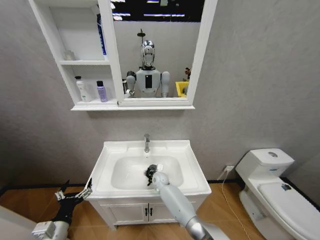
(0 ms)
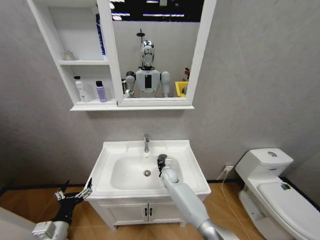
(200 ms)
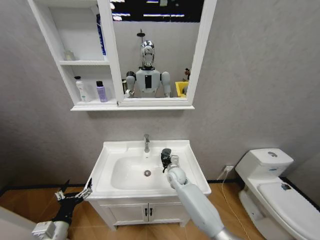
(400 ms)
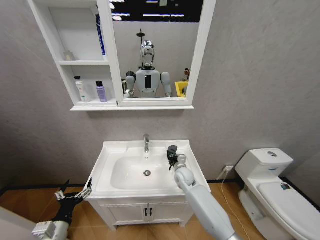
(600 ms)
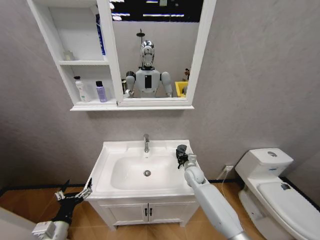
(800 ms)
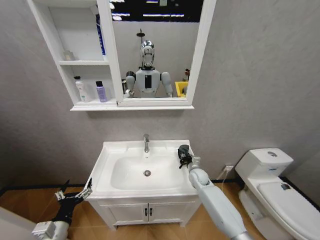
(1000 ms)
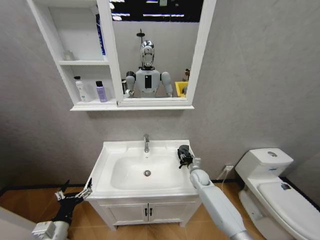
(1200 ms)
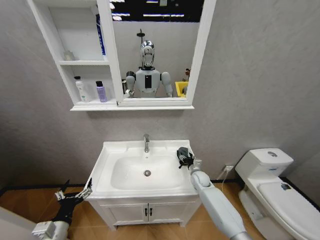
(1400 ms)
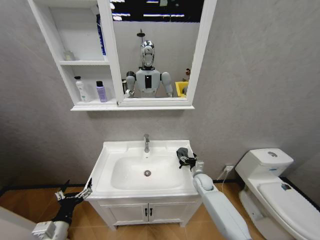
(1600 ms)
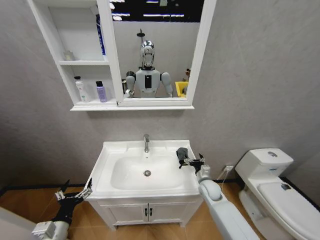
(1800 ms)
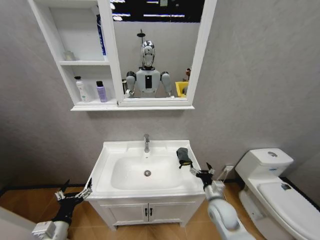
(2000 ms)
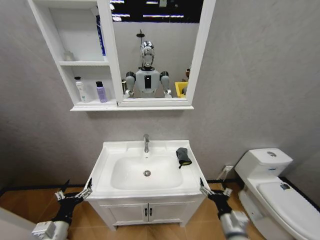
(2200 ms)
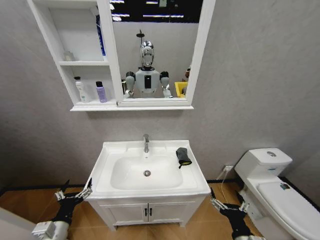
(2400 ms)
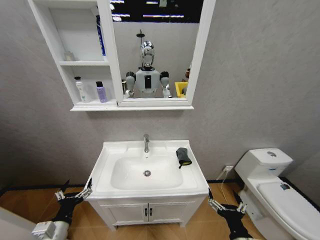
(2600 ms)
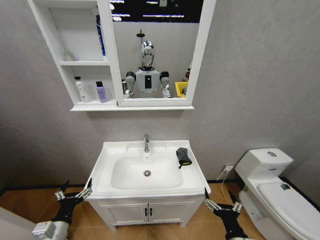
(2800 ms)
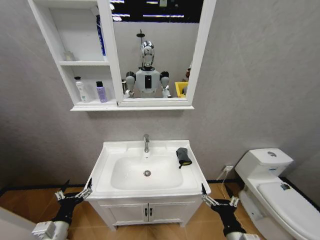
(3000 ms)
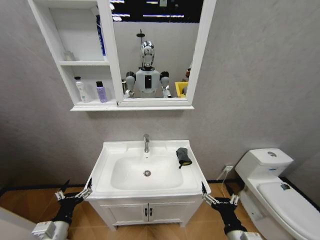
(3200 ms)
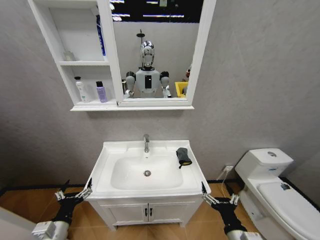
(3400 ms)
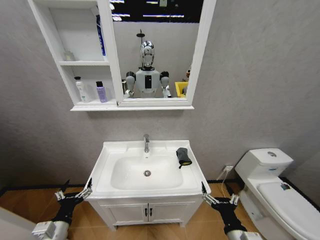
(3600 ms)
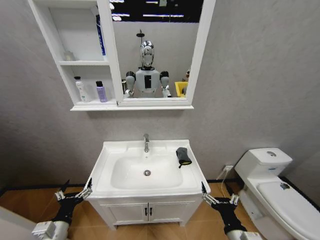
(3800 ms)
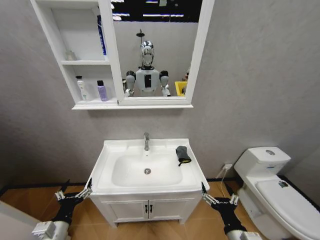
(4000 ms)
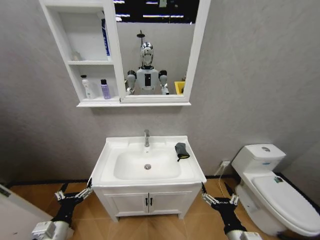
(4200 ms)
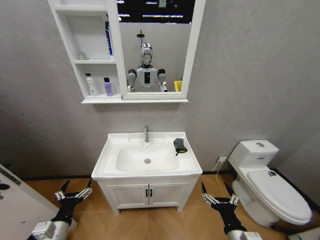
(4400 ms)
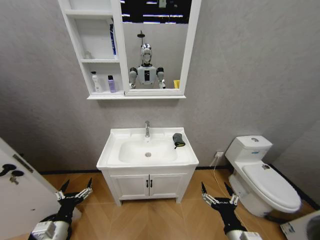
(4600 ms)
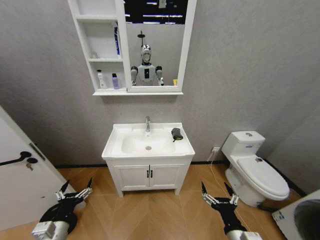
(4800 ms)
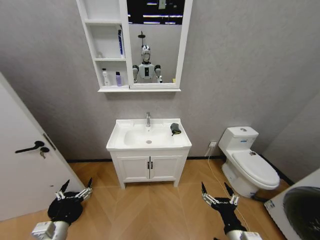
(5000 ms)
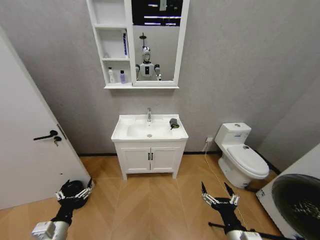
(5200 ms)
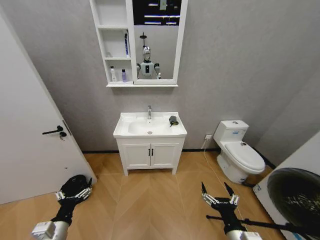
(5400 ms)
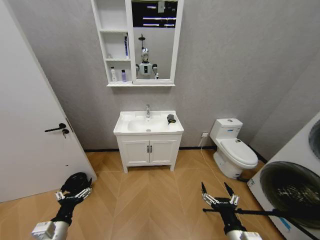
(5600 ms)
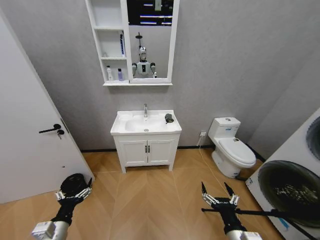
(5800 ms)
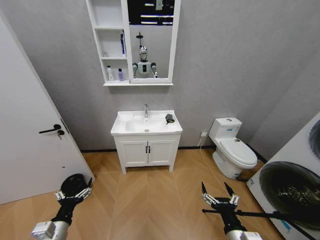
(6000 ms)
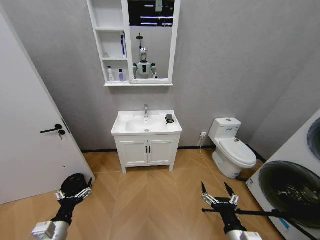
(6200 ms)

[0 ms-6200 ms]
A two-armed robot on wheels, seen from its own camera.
Task of the whole recording: Move facial cleanser and shampoo from washbasin to cabinet, then wipe washbasin with towel.
0 ms to 1600 ms: The right gripper is displaced to the right by about 20 cm, and opens up.
1600 ms to 3200 ms: The right gripper heads backward, covering roughly 35 cm.

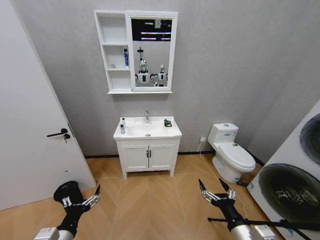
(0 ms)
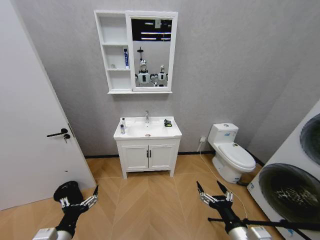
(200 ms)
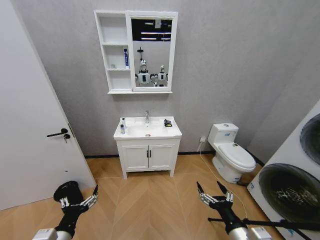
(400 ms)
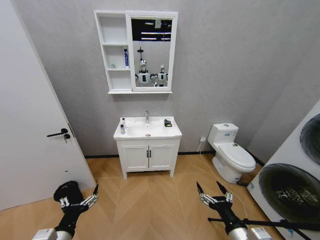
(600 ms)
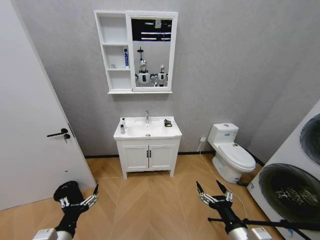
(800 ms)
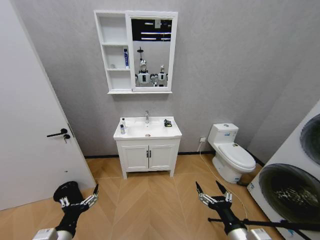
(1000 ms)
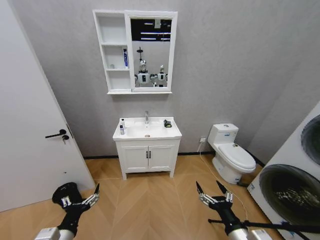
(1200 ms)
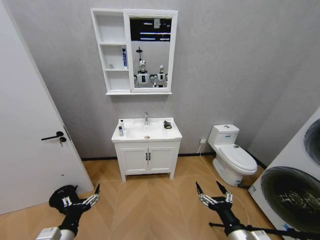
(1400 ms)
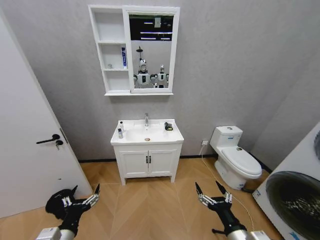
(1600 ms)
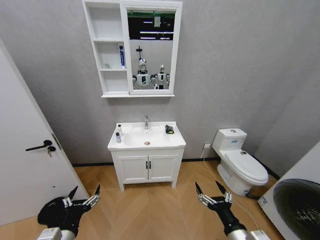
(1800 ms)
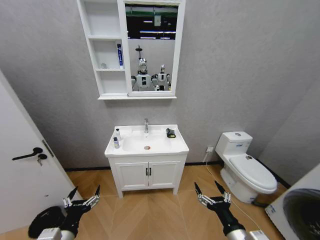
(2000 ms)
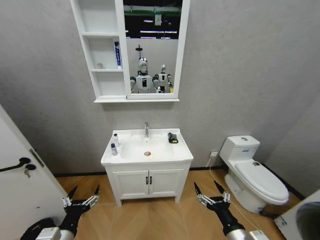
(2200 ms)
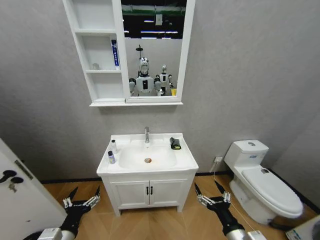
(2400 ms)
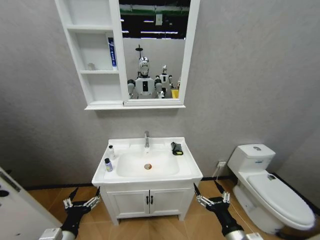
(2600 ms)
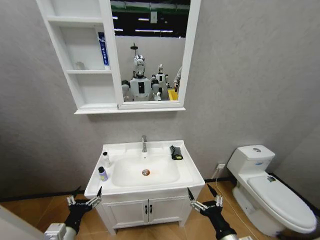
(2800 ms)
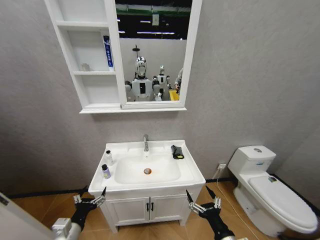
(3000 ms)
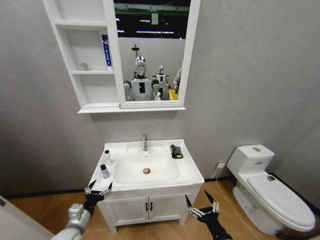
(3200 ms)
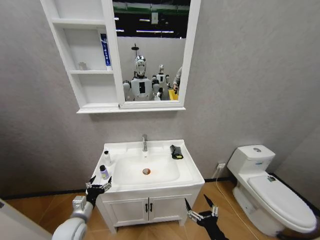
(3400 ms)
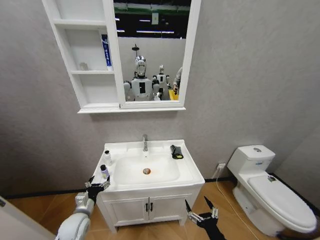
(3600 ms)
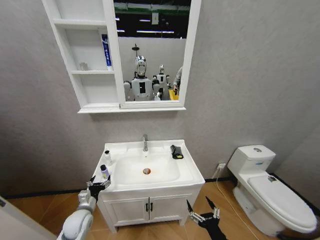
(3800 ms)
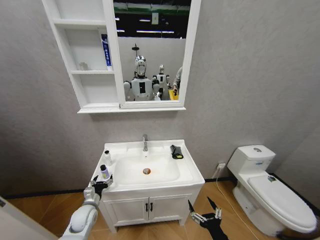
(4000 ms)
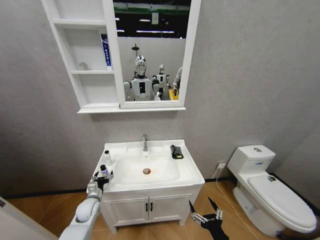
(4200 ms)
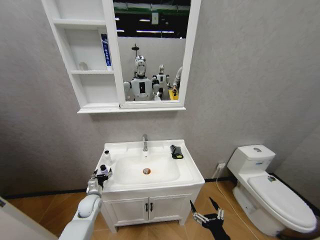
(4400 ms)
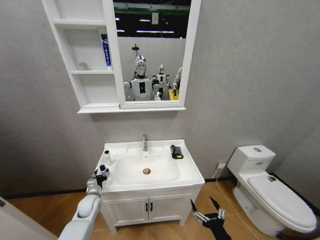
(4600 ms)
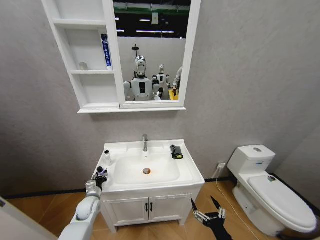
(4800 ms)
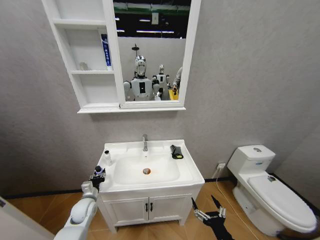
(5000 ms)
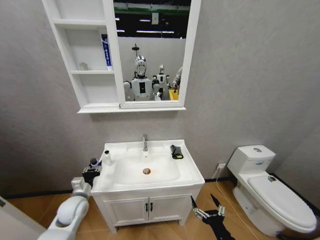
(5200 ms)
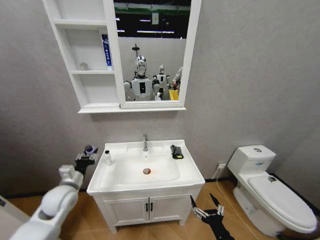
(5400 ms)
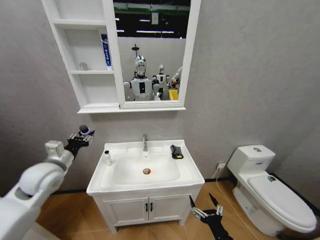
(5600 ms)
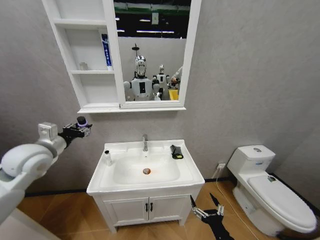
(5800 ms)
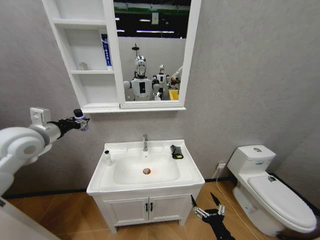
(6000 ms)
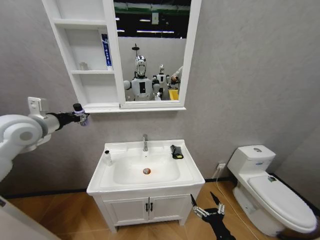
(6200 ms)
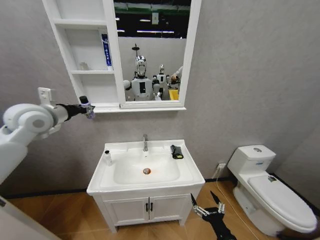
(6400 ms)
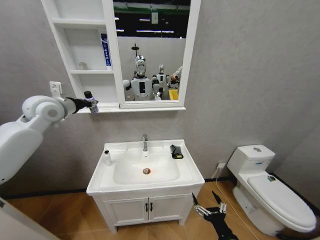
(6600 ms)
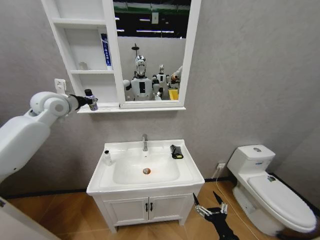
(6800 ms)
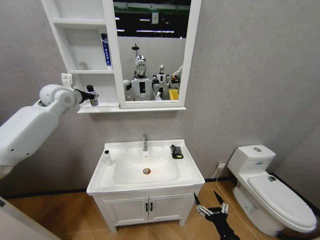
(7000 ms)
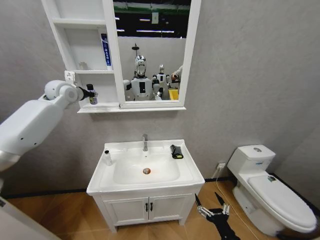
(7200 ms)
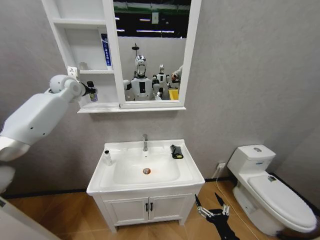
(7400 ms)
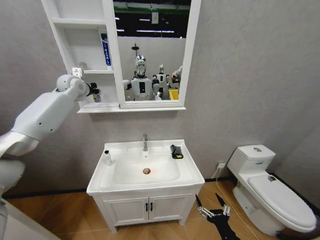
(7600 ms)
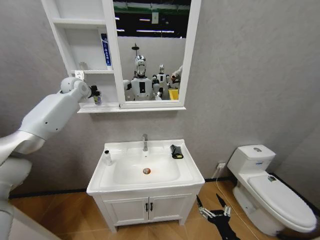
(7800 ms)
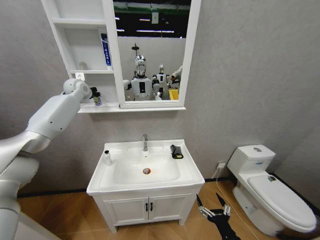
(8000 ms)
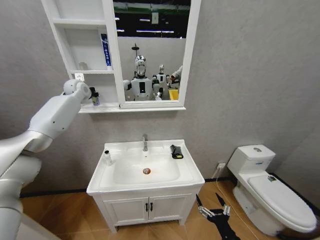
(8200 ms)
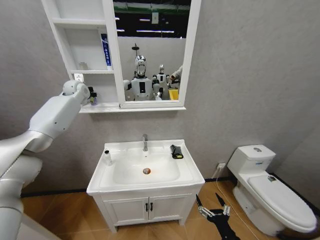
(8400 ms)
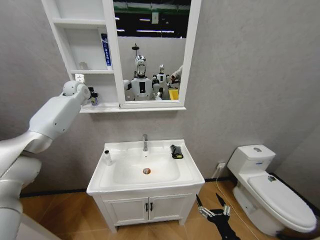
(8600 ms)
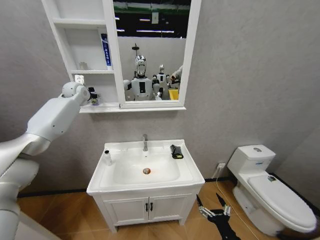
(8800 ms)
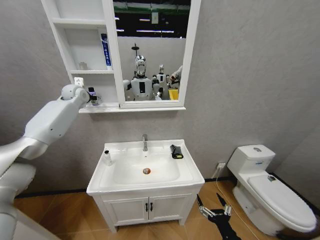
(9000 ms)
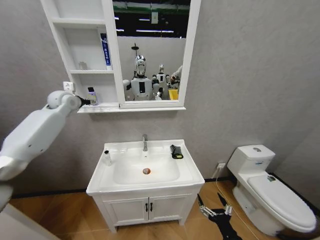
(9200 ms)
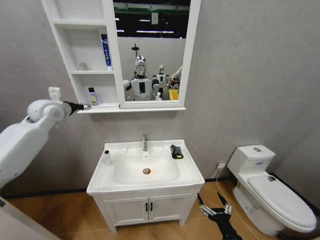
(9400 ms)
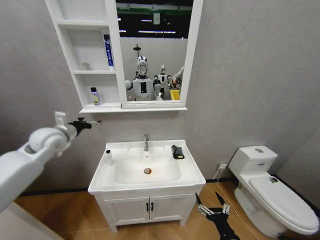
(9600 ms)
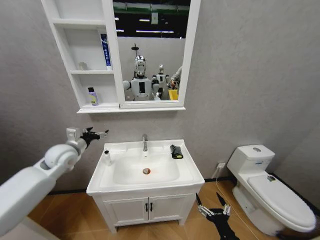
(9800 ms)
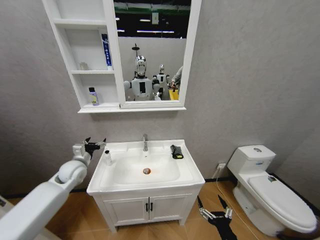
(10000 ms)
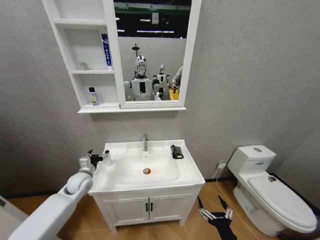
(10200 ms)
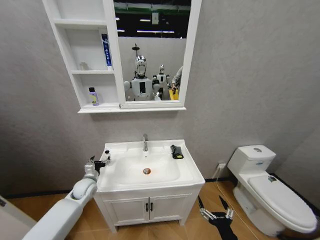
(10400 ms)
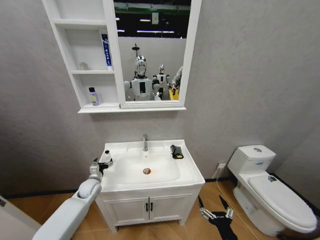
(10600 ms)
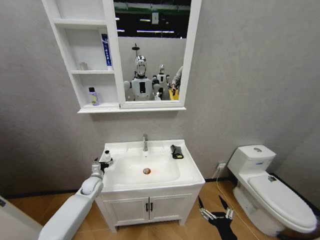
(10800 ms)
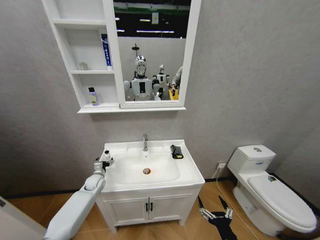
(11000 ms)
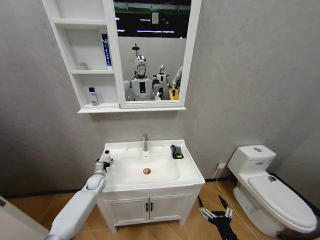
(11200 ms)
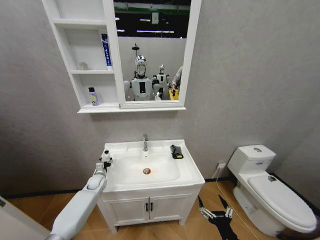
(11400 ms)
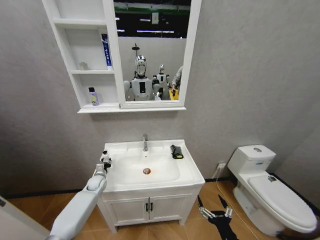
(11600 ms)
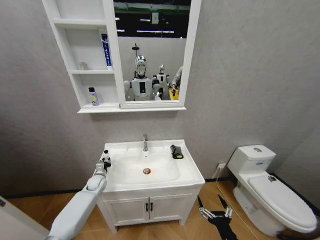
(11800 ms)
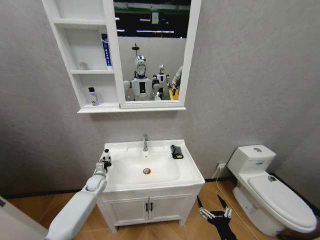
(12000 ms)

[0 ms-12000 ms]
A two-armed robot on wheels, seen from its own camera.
Task of the whole recording: Move facial cleanser and shampoo from washbasin to cabinet, then wipe washbasin with towel.
1600 ms to 3000 ms: The left gripper ends up approximately 5 cm from where it was.
3000 ms to 4400 ms: The left gripper heads forward and downward, covering about 20 cm.
4400 ms to 6000 ms: The left gripper heads upward, covering roughly 40 cm, and closes up.
6000 ms to 7600 ms: The left gripper moves forward and upward, roughly 30 cm.
7600 ms to 9000 ms: The left gripper opens.
9000 ms to 10400 ms: The left gripper shifts about 40 cm downward and backward.
10400 ms to 12000 ms: The left gripper heads downward and forward, covering about 10 cm, and closes up.

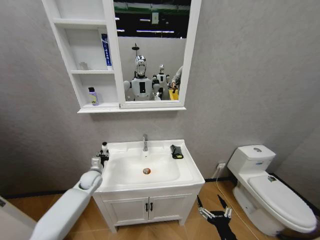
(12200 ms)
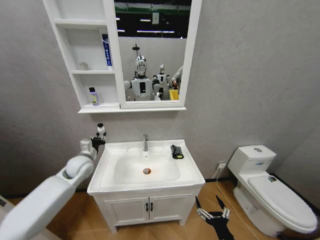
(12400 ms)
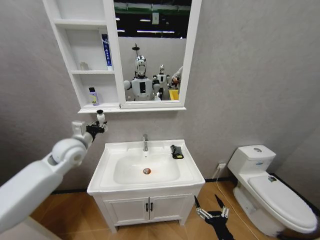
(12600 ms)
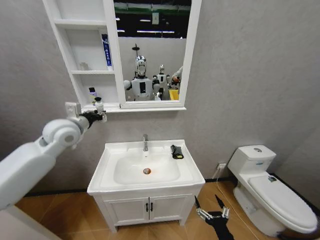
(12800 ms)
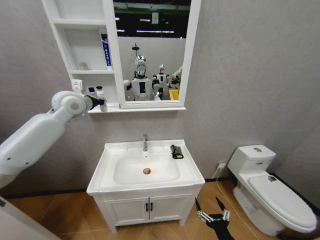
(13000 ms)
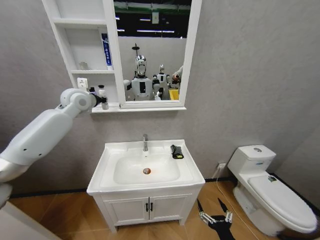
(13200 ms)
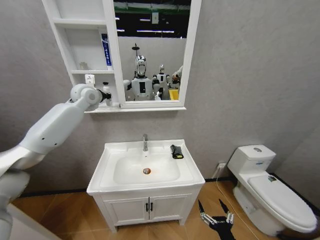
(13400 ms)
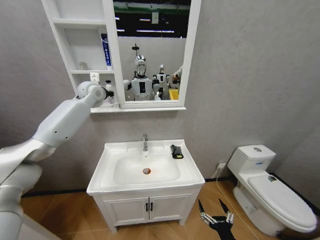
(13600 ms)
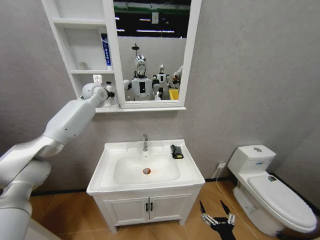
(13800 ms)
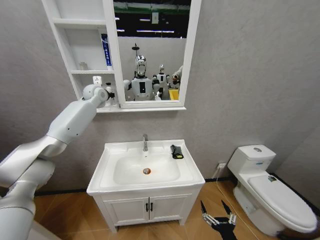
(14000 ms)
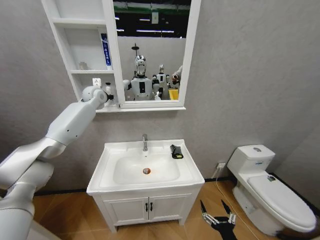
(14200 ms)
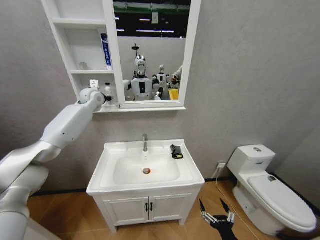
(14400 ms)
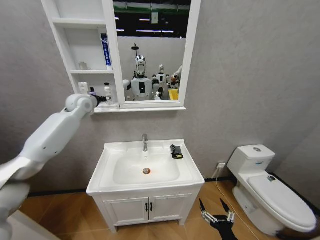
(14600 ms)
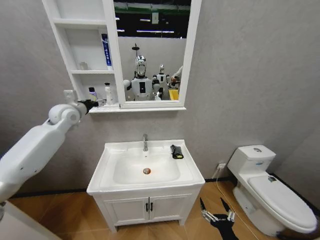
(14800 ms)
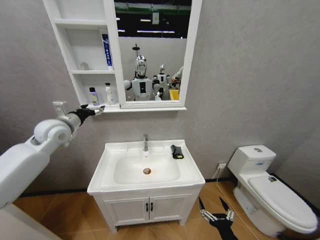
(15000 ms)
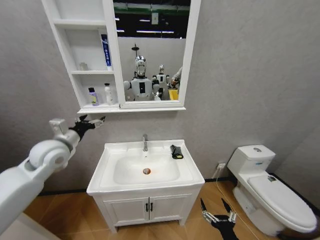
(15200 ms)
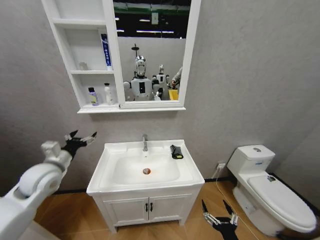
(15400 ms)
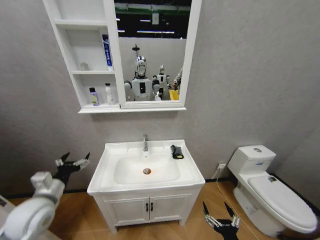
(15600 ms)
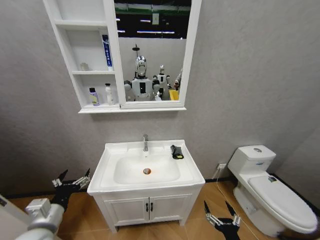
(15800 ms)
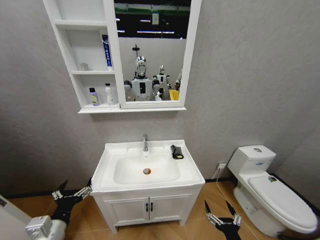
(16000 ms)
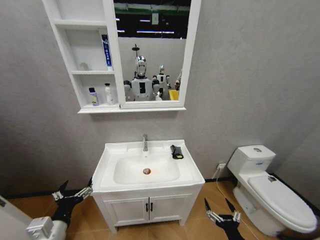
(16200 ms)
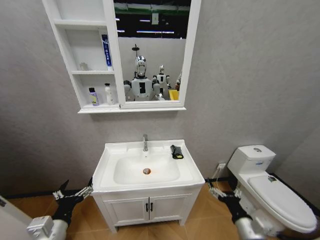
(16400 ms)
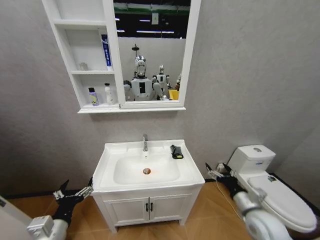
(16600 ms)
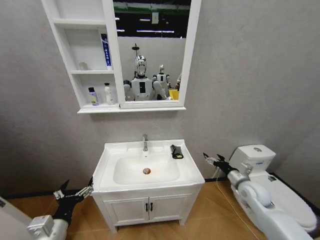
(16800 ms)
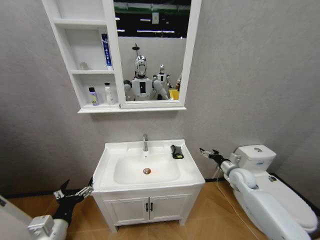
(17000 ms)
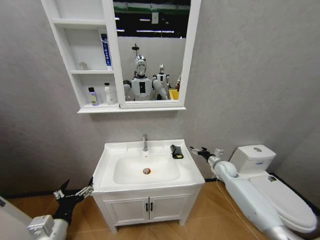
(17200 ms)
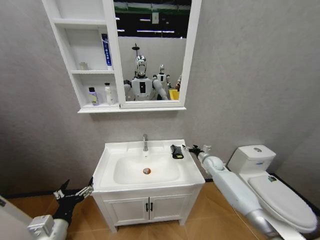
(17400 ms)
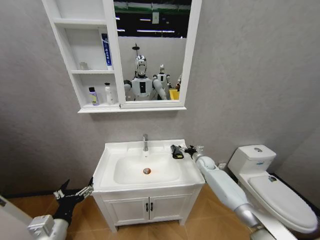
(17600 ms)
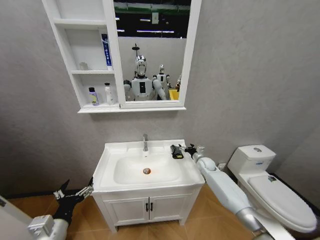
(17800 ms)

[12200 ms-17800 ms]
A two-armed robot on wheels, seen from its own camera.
Task of the whole recording: Move facial cleanser and shampoo from washbasin to cabinet, then wipe washbasin with towel.
12200 ms to 13600 ms: The left gripper heads upward and forward, covering roughly 40 cm.
13600 ms to 15000 ms: The left gripper moves backward, downward and to the left, roughly 20 cm, and opens.
15000 ms to 16400 ms: The left gripper is displaced backward and downward by roughly 35 cm. Meanwhile the right gripper is displaced forward by about 5 cm.
16400 ms to 17800 ms: The right gripper goes approximately 40 cm forward.
